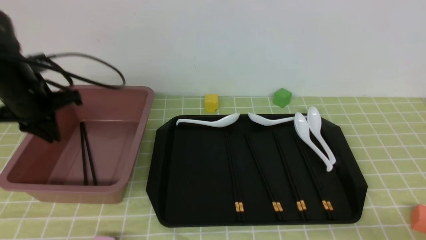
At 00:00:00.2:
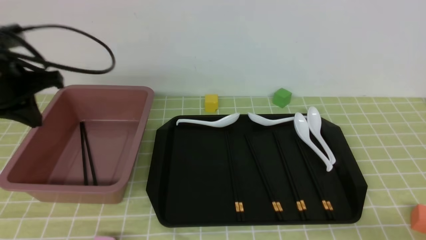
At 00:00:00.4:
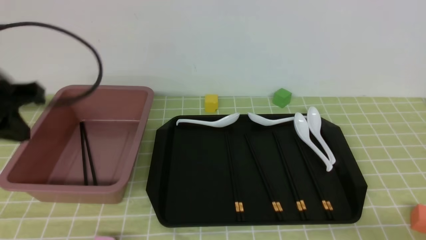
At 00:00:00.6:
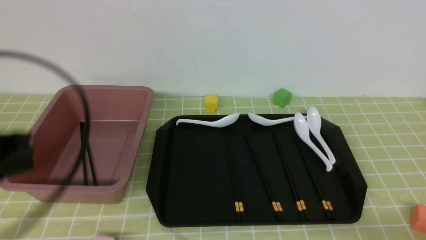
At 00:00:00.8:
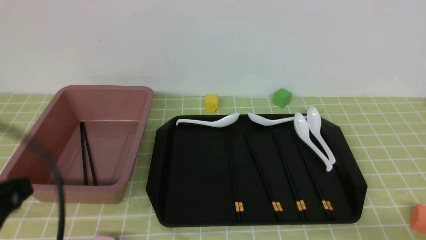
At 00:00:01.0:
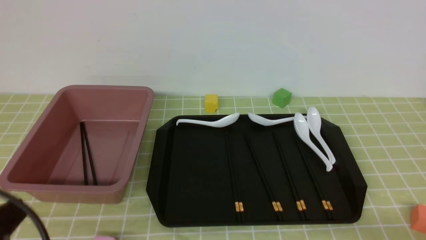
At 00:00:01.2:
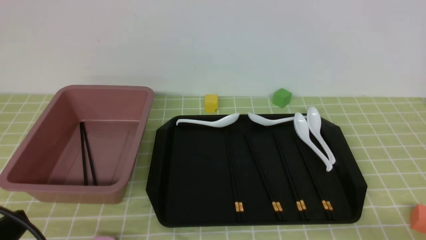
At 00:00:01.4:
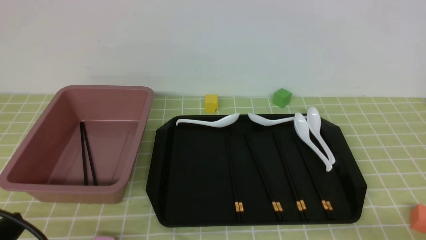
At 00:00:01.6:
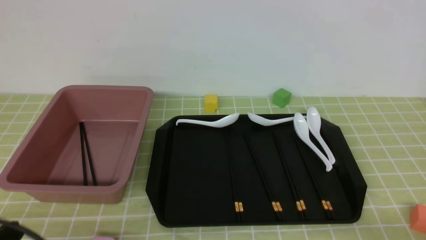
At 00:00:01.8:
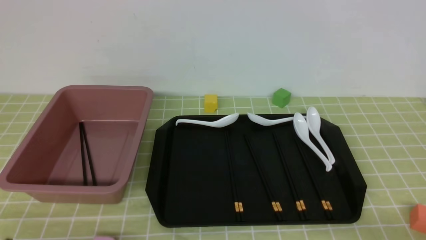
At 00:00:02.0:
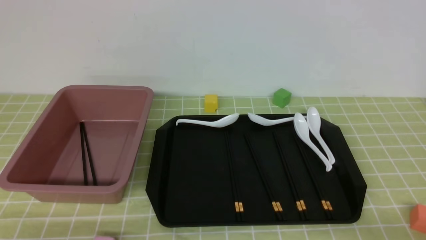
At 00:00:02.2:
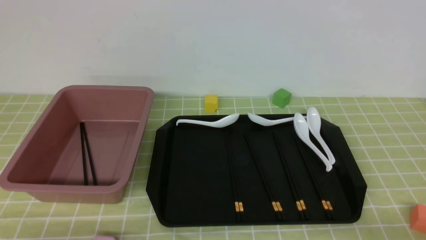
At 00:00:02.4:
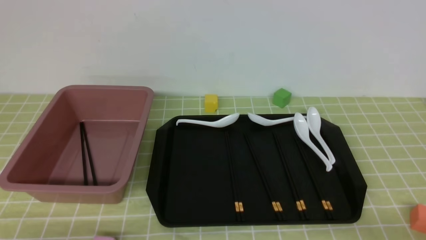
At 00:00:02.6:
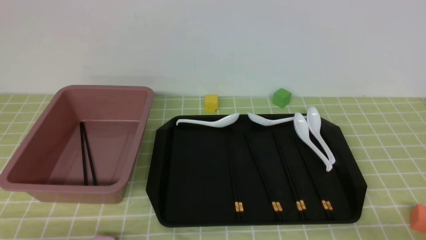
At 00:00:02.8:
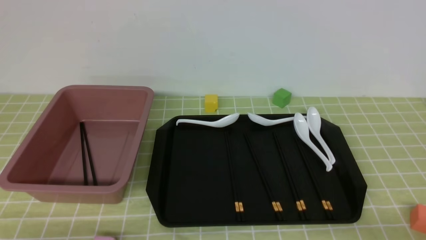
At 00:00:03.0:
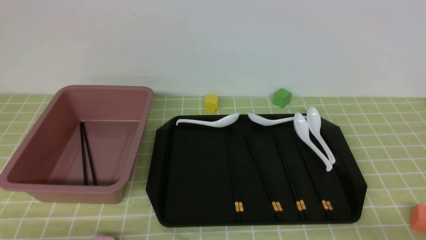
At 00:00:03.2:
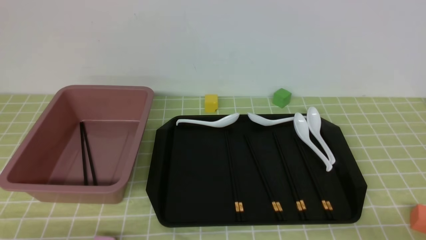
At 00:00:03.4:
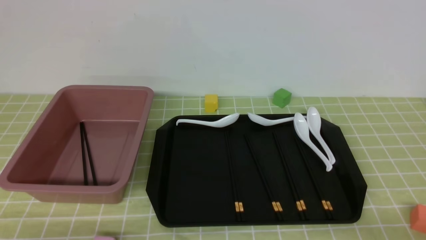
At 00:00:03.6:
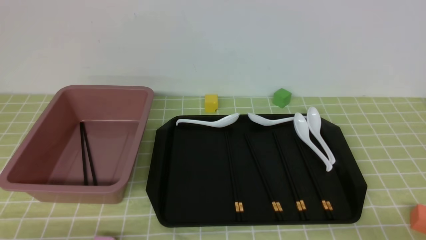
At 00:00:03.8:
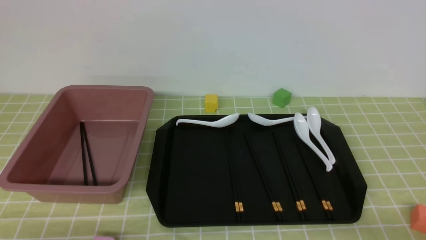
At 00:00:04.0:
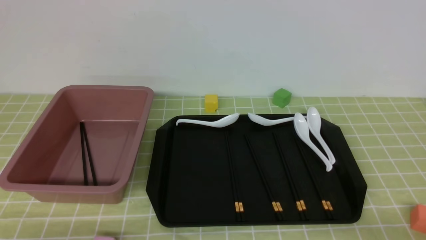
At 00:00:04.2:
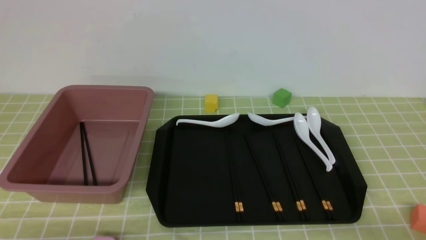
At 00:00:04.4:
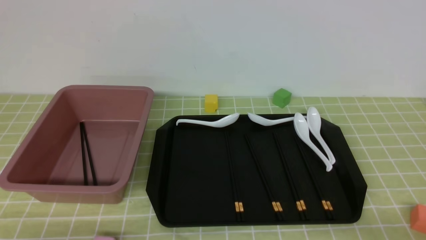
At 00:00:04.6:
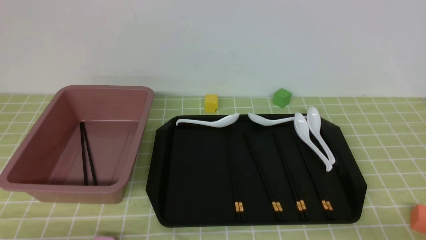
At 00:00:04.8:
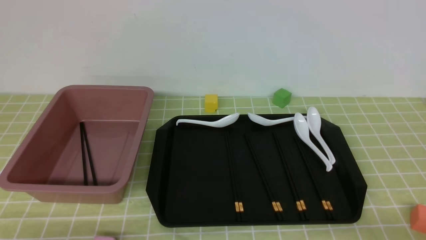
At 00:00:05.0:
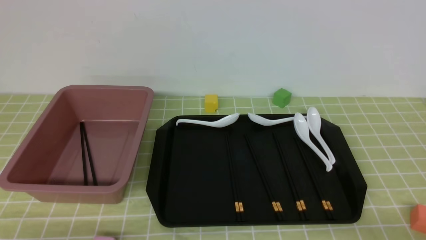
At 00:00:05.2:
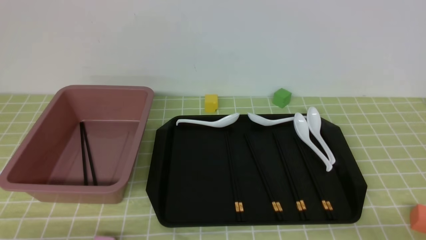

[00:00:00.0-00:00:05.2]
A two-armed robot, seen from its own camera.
00:00:00.0 to 00:00:01.8: The left gripper moves backward, approximately 30 cm.
00:00:03.4 to 00:00:05.2: The two grippers keep their place.

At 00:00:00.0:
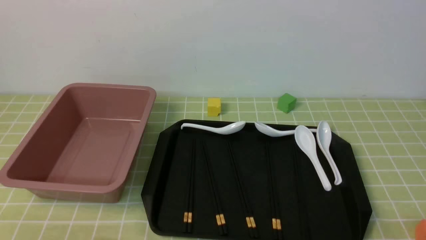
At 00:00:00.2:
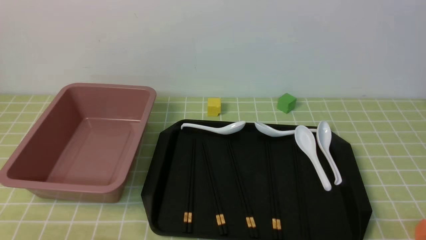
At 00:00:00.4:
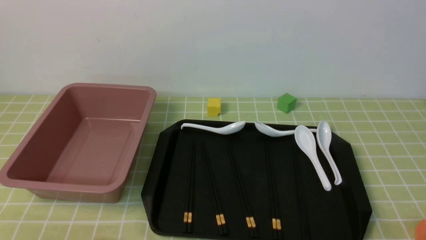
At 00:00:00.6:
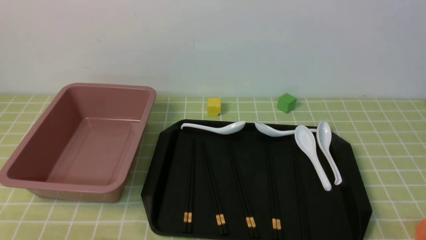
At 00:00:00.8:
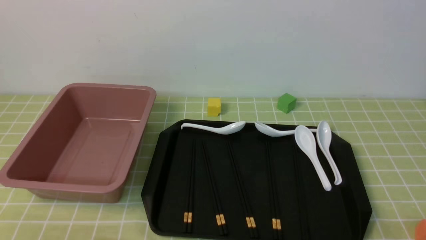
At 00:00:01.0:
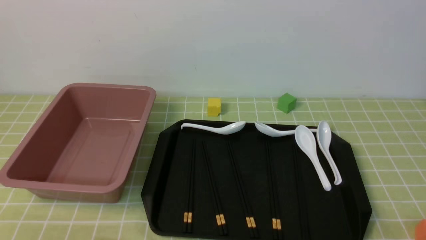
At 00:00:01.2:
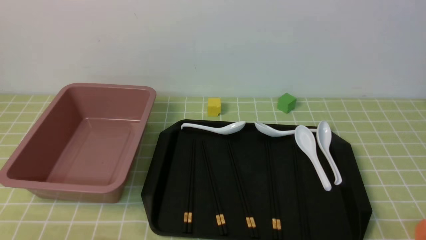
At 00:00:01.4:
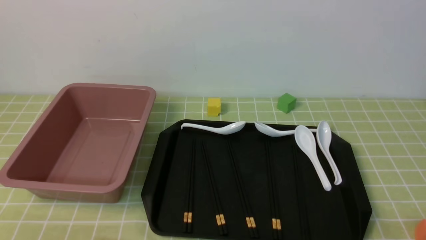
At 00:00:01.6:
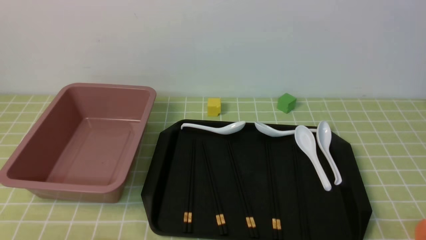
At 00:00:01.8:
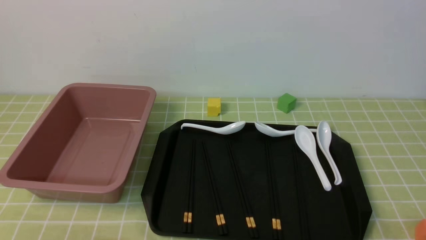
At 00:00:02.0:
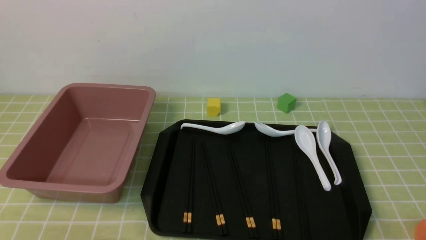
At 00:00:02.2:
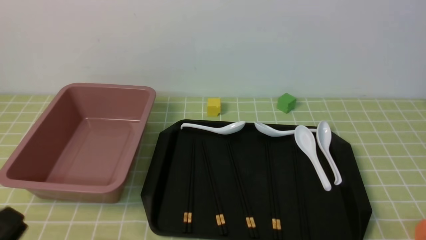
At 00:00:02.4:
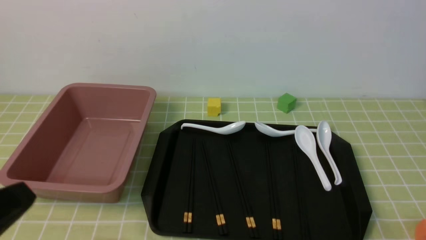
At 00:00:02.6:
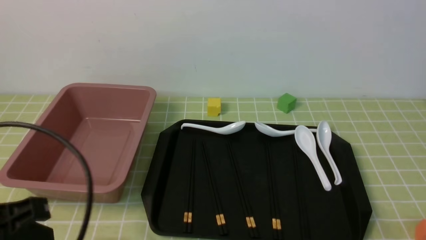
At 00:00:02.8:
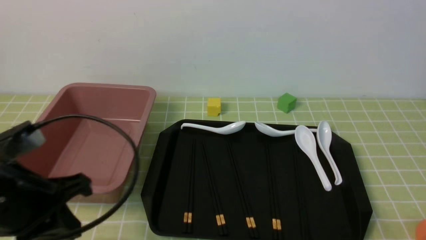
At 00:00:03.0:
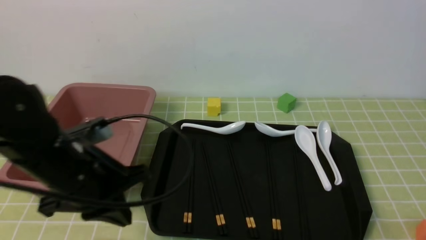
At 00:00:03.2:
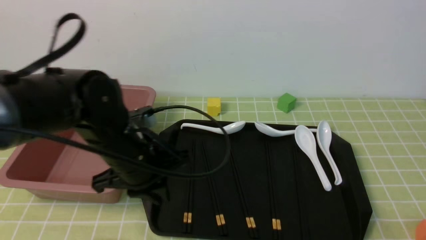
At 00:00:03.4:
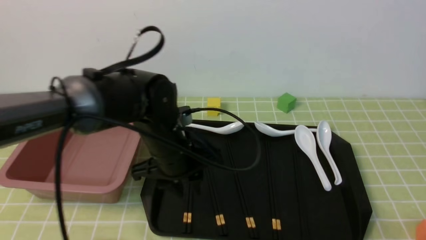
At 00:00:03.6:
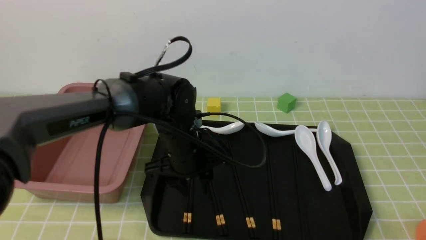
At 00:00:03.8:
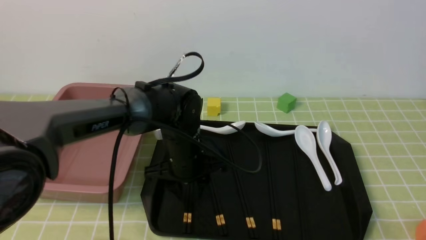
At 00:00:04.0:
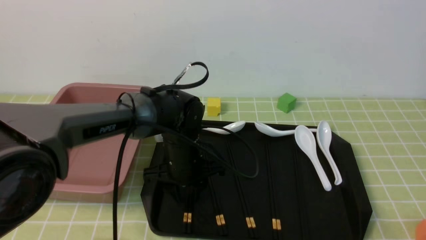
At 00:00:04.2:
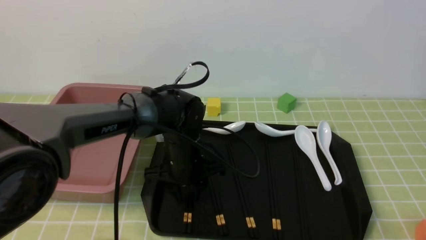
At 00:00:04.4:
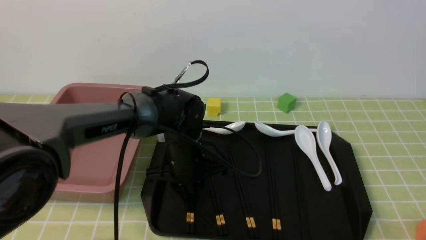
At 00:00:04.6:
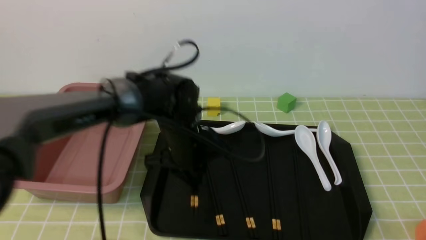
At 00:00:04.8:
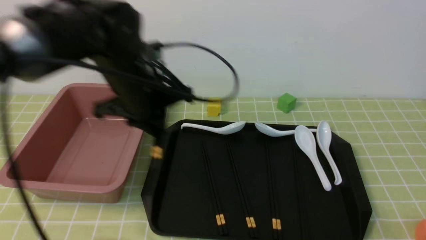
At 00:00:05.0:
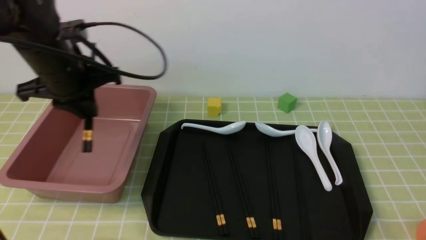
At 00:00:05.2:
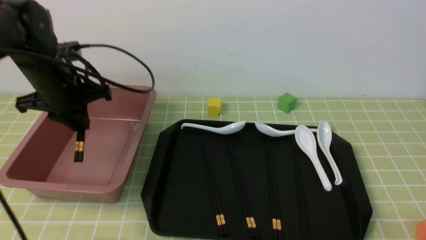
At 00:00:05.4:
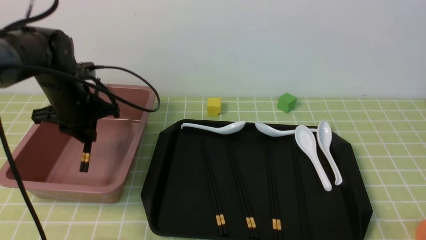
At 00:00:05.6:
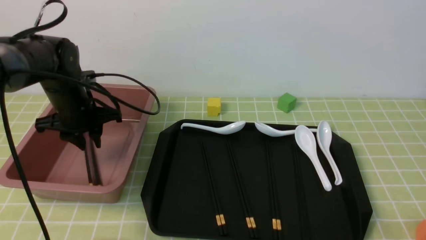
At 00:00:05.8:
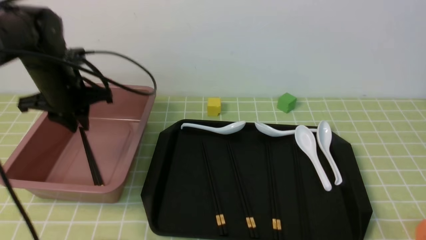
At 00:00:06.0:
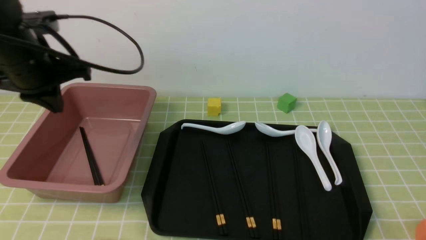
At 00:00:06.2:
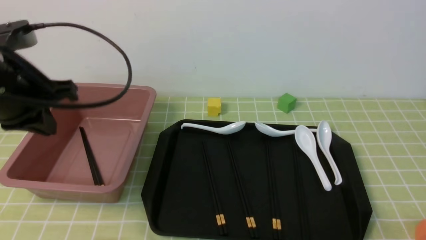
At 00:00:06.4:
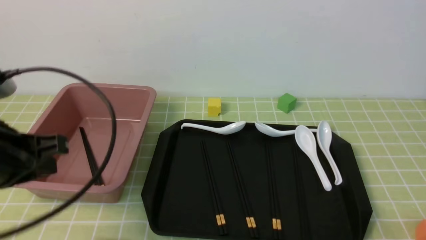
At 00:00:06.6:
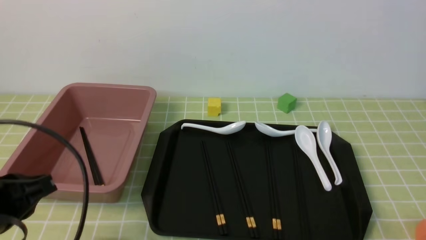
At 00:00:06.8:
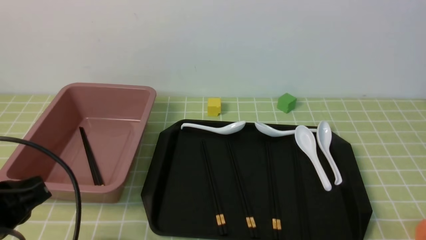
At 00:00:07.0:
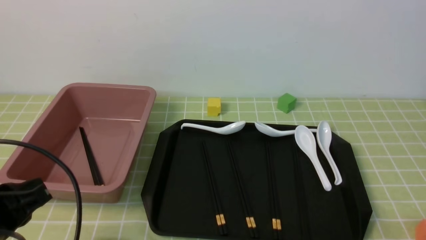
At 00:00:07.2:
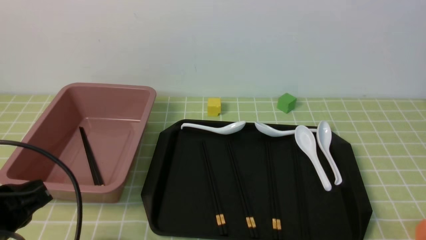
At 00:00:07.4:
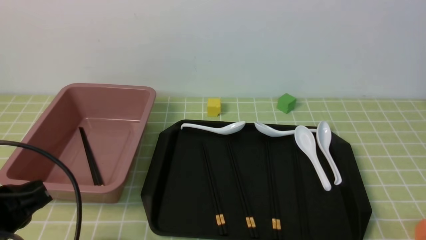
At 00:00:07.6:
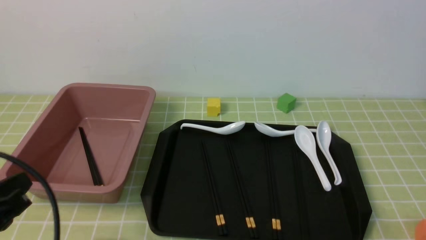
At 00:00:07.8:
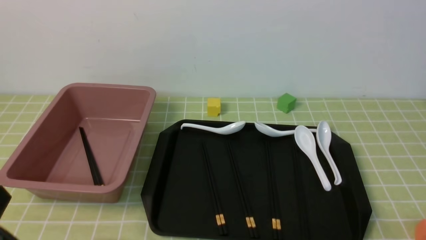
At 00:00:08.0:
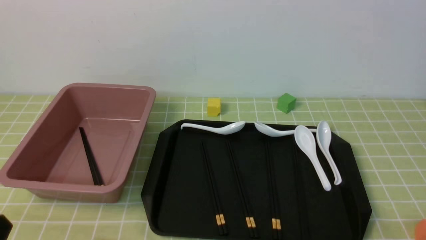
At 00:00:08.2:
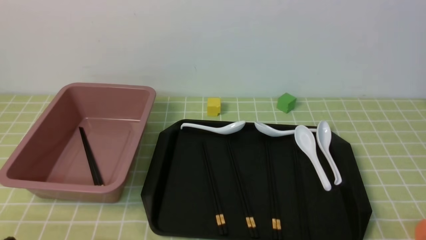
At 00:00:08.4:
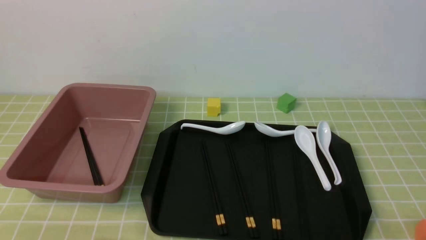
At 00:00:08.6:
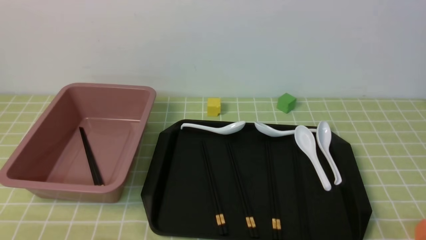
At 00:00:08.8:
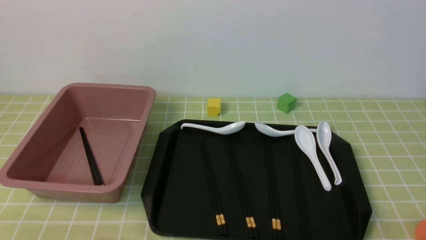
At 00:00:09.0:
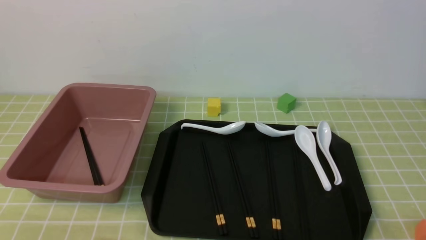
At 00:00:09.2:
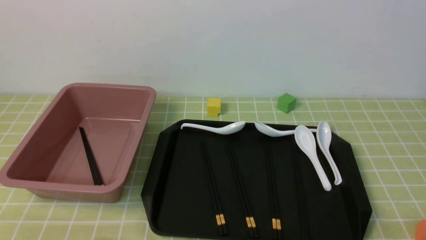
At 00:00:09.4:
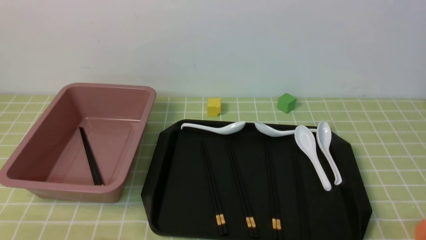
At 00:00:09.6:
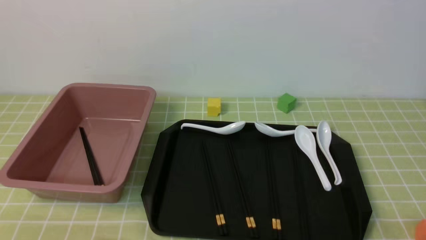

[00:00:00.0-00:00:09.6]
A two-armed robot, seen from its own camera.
Step, 00:00:00.0 to 00:00:04.6: use the left arm to grab a pair of chopsticks.
Step, 00:00:05.0 to 00:00:06.0: use the left arm to put the chopsticks into the lunch box.
00:00:01.6 to 00:00:03.2: The left gripper travels forward and to the right by approximately 25 cm, and closes and opens again.
00:00:03.2 to 00:00:04.8: The left gripper goes roughly 10 cm forward, and opens, then closes once more.
00:00:04.8 to 00:00:06.4: The left gripper is displaced backward and to the left by approximately 20 cm, and closes.
00:00:06.4 to 00:00:08.0: The left gripper moves backward and downward, roughly 15 cm.
